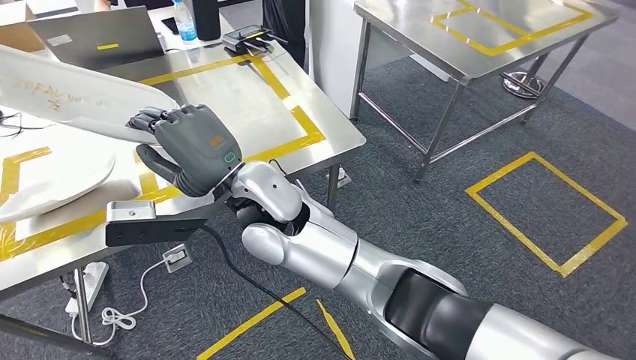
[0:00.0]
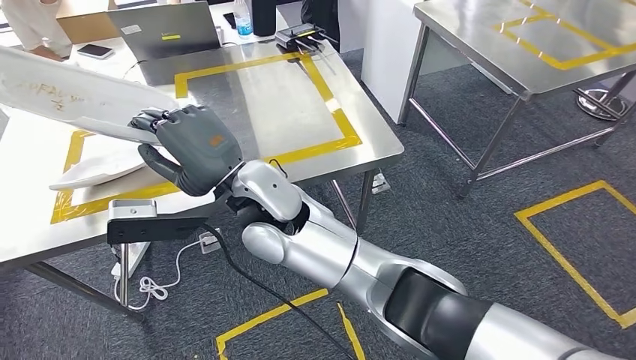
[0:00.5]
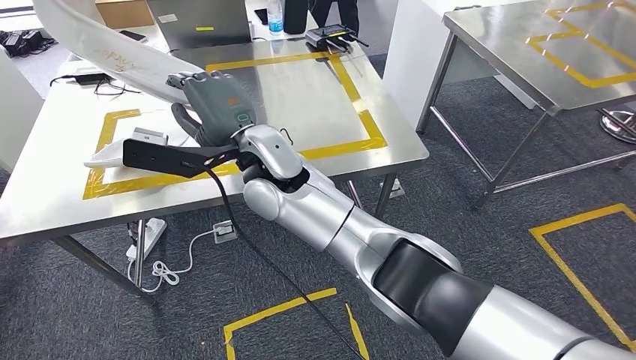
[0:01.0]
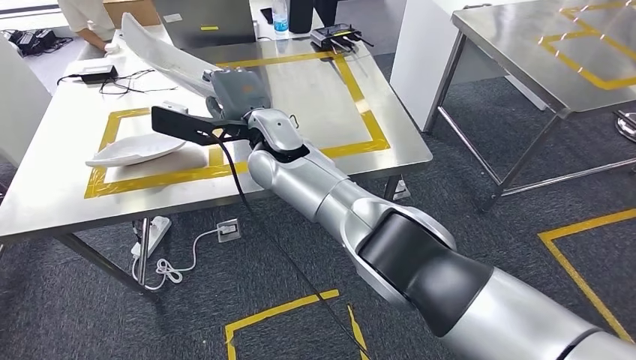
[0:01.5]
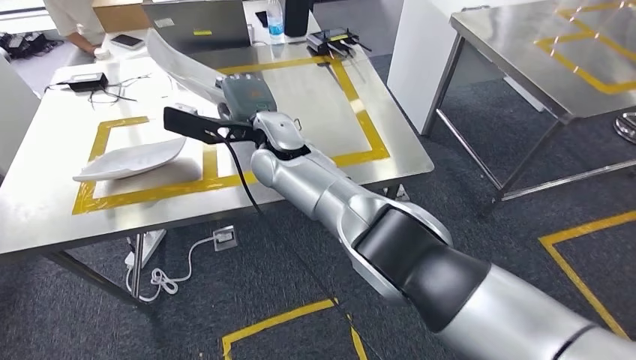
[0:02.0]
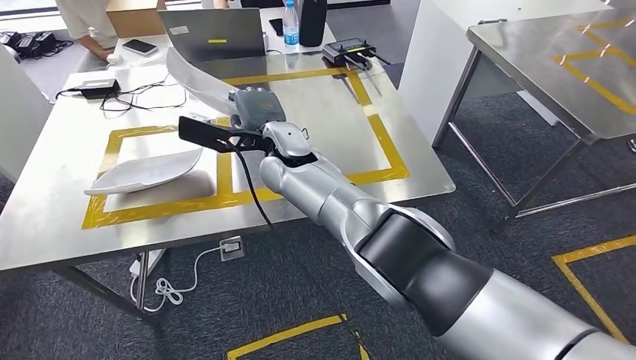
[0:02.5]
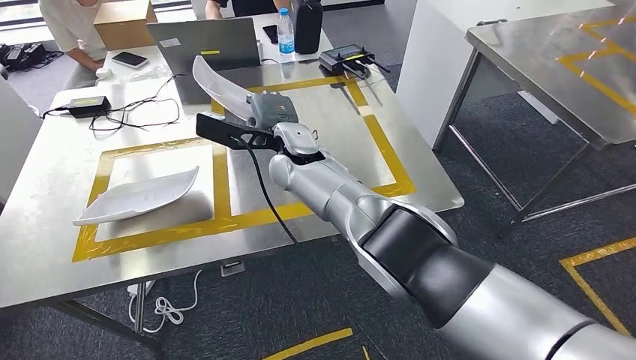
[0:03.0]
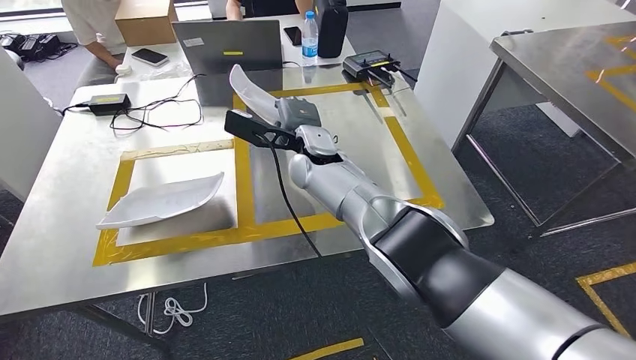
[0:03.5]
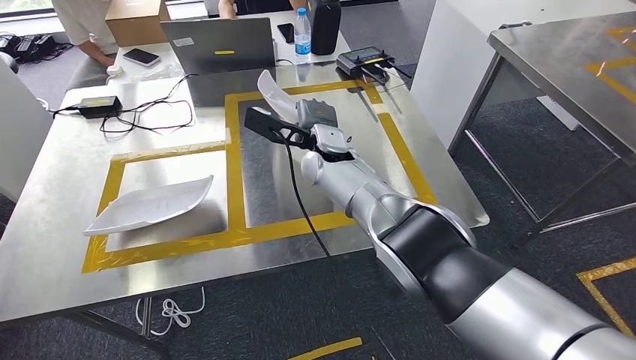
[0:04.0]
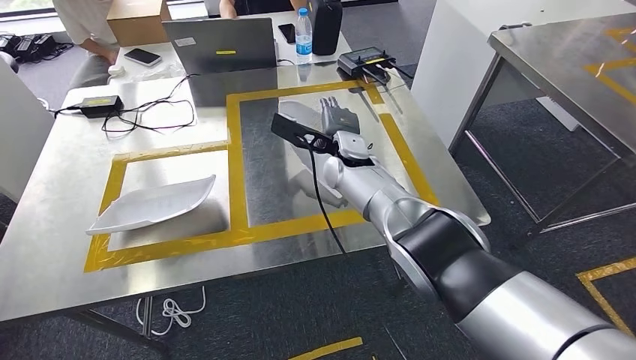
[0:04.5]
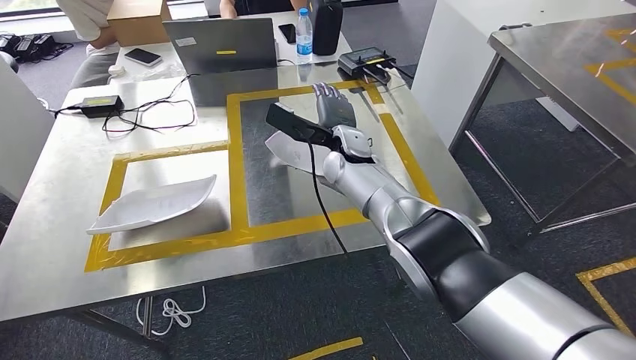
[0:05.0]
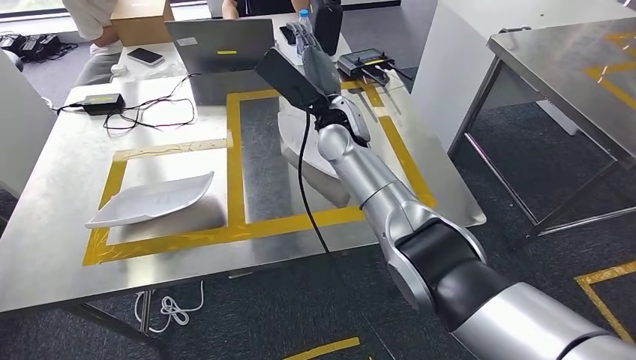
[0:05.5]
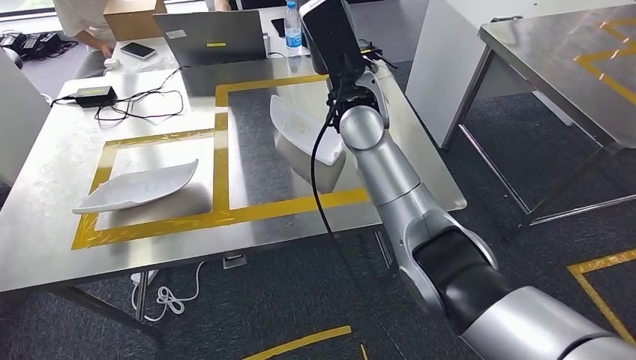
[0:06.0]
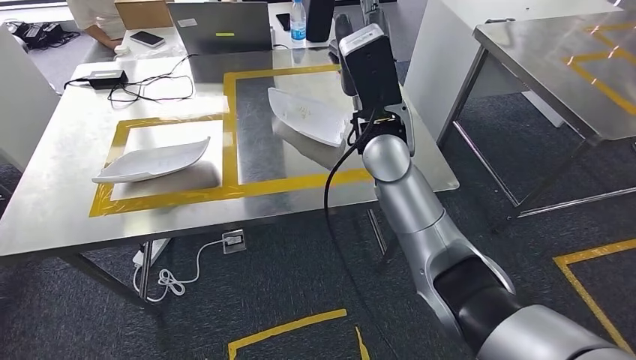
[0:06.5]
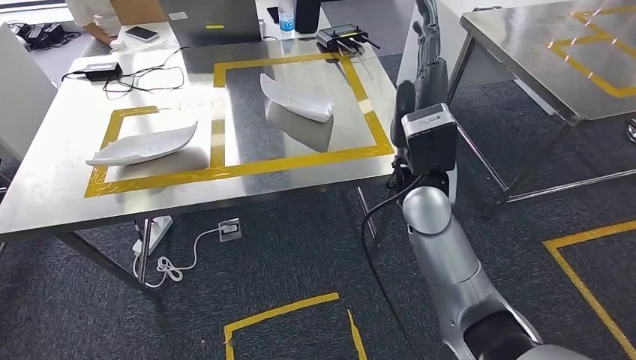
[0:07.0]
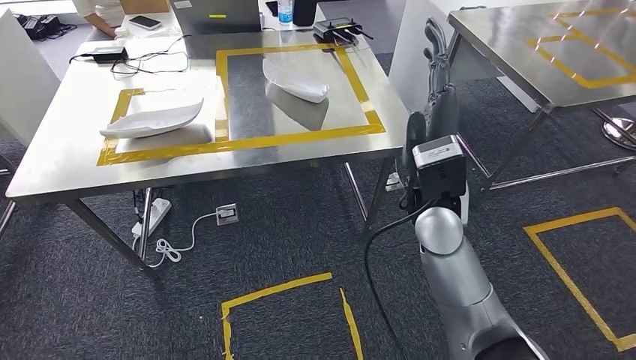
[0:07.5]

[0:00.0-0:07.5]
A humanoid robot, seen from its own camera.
Step, 0:01.5 to 0:05.0: Insert the small component into the corresponding slot on the workbench.
Step, 0:06.0 to 0:07.5: Return to the initial position at the workbench.
